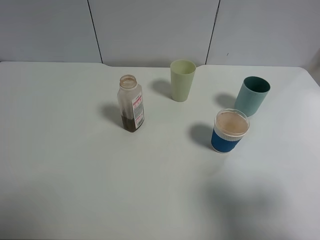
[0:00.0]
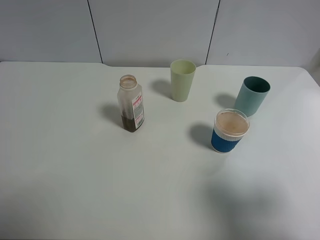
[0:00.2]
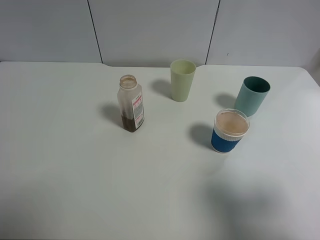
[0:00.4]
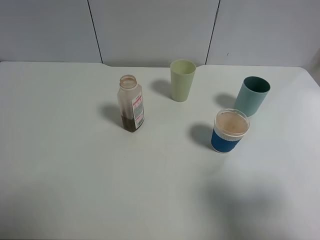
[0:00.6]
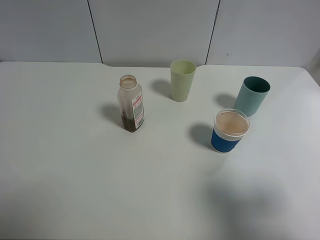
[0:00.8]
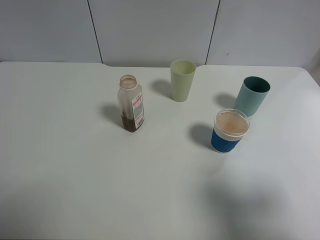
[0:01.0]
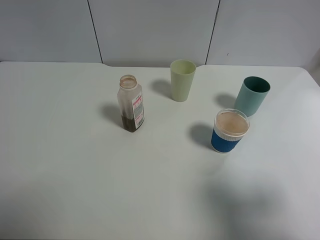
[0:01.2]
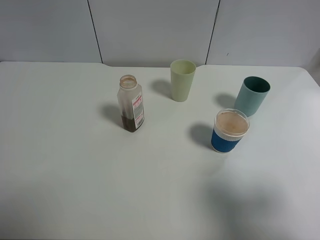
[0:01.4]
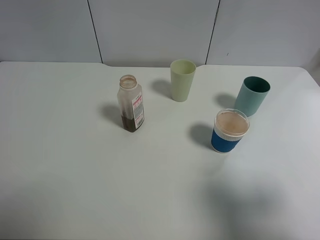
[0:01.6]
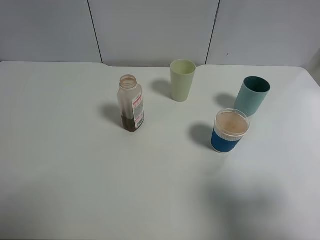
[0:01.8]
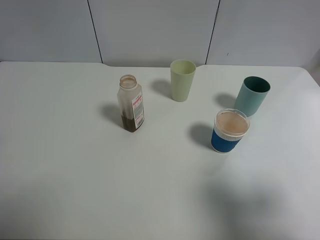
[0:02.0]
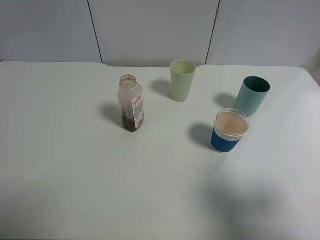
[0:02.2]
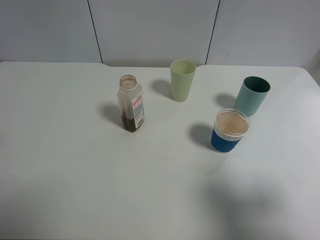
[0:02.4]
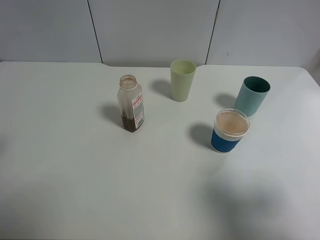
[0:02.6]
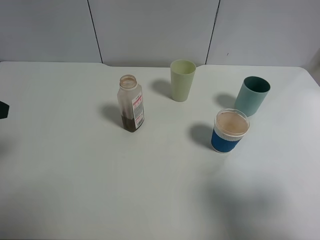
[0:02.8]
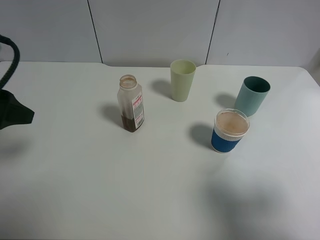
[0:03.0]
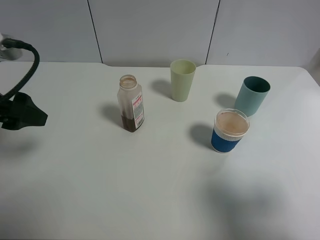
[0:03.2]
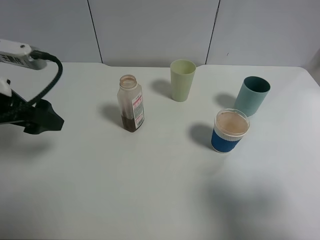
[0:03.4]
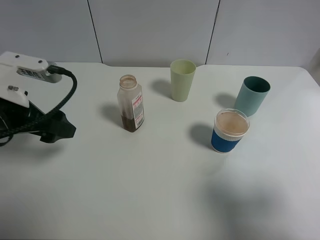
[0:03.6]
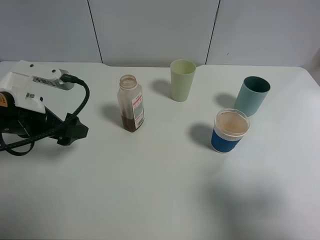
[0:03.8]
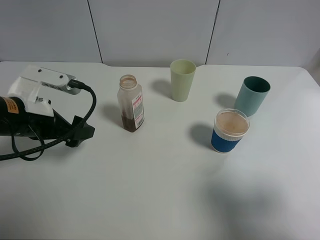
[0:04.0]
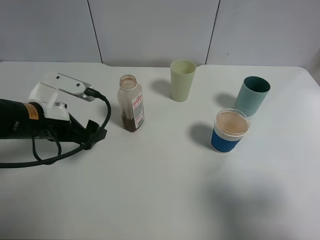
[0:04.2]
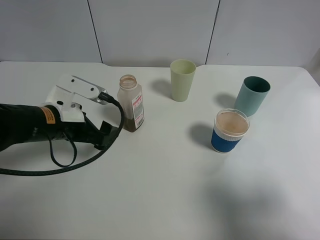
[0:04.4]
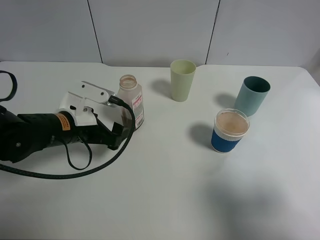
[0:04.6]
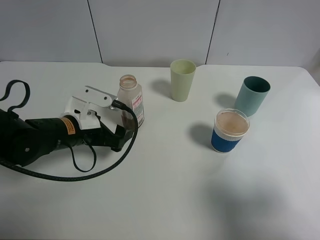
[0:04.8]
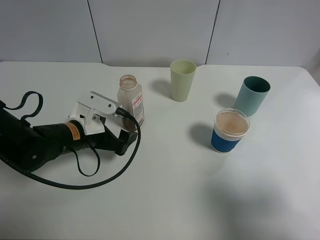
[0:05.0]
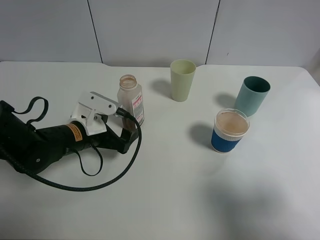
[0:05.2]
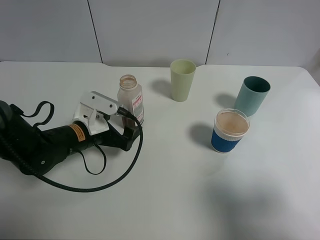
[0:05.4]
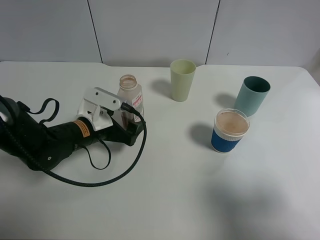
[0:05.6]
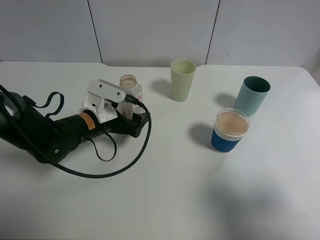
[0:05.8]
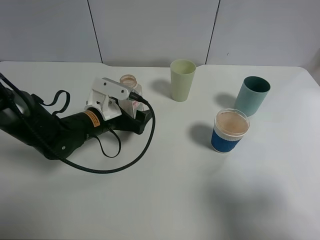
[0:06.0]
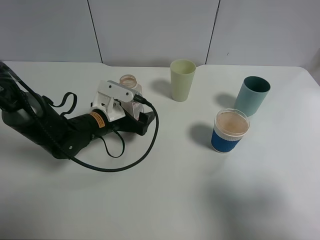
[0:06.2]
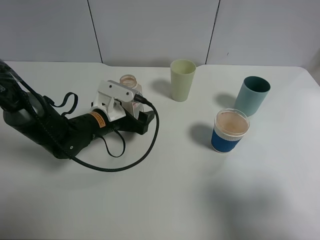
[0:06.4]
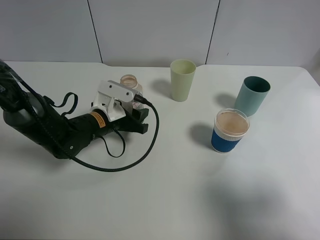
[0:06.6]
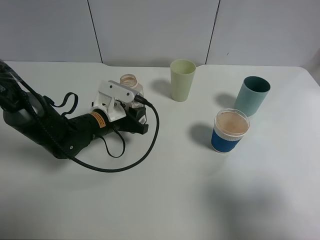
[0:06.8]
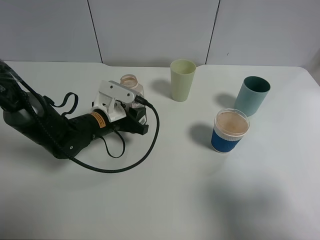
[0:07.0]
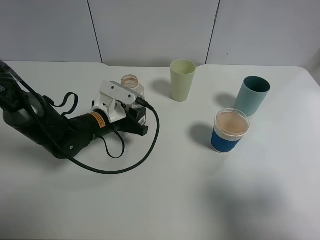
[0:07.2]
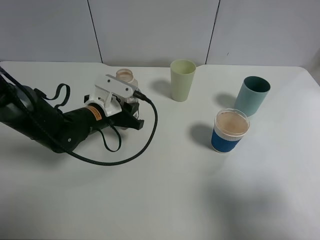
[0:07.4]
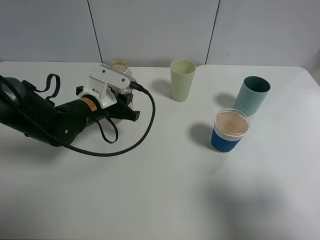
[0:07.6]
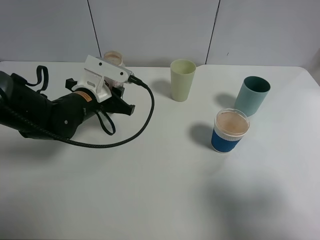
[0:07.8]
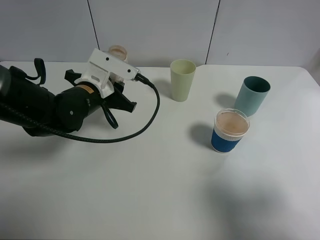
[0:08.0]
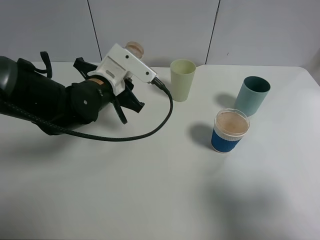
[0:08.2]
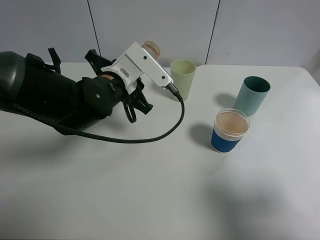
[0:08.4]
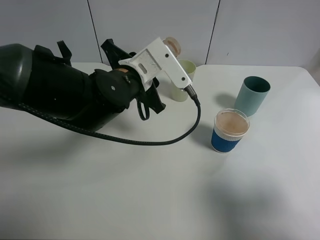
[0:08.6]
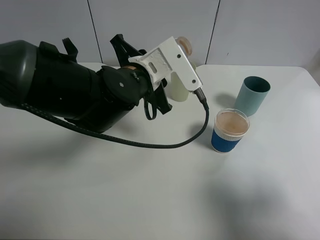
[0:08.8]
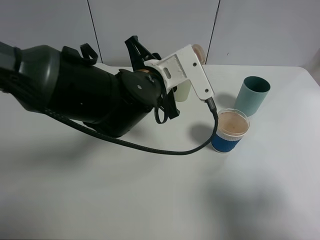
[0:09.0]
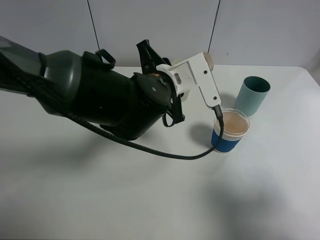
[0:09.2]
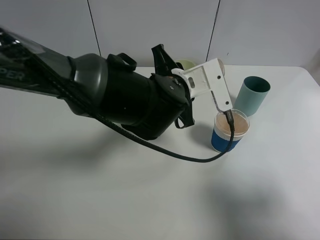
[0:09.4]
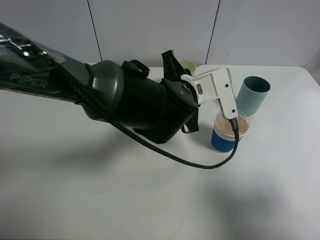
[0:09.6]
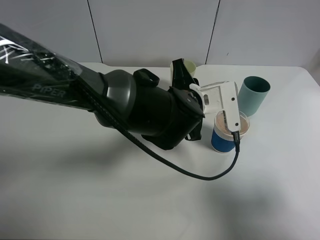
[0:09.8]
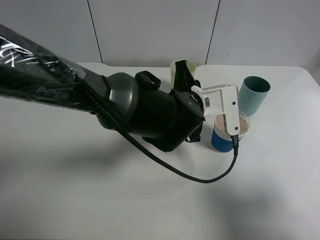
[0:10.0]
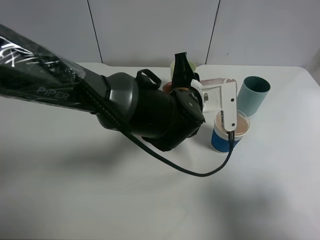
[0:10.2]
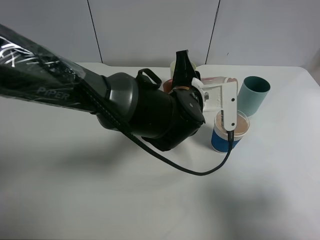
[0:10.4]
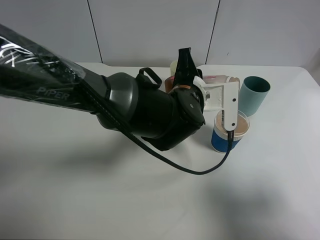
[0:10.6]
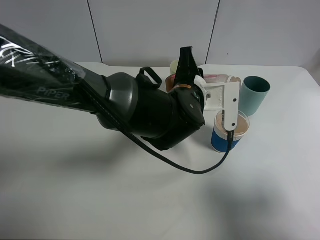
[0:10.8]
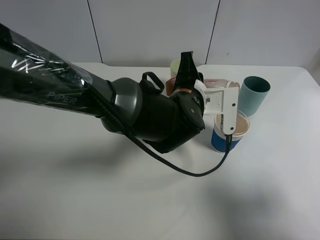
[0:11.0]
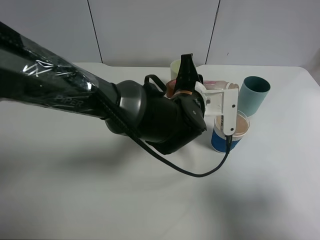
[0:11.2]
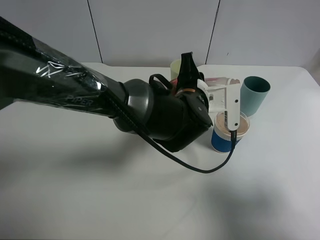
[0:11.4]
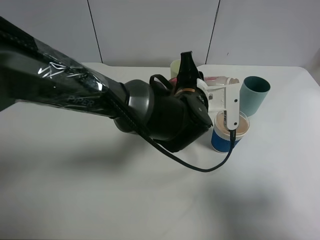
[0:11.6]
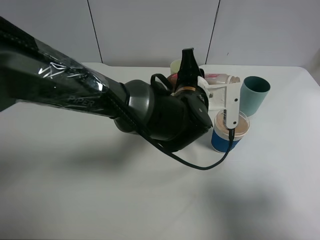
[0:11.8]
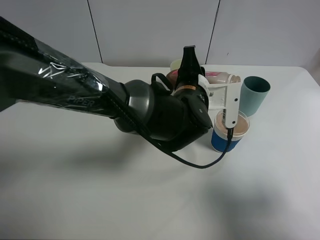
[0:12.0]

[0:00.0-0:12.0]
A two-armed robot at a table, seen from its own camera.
Task of the whole recording: use a clamp to hold the bottle of the drink, pour the beverage into a random cup, then clamp the cup containing the drink and pour the drink into another random cup.
Step, 0:00.0 to 0:07.6: Pick up the drink bottle with left gripper.
0:01.6 to 0:03.0: The left gripper goes about 10 cm forward and downward.
0:03.0 to 0:04.4: The left gripper moves downward and to the right, roughly 15 cm.
0:04.4 to 0:06.0: The left gripper moves downward and forward, some 10 cm.
0:06.0 to 0:07.6: The left gripper closes its fingers.
0:07.6 to 0:09.0: The left gripper shifts roughly 15 cm to the right and upward.
0:09.0 to 0:10.4: The left gripper is displaced to the right by about 5 cm.
0:10.4 to 0:12.0: There are only small adjustments of the grippers.

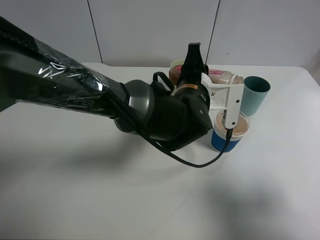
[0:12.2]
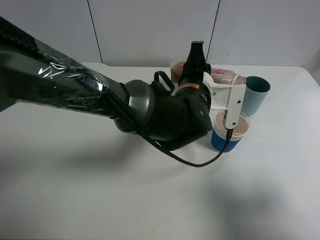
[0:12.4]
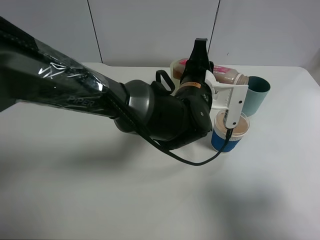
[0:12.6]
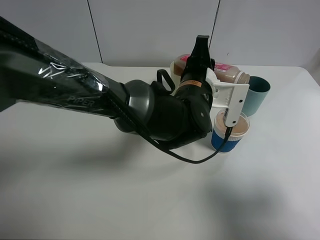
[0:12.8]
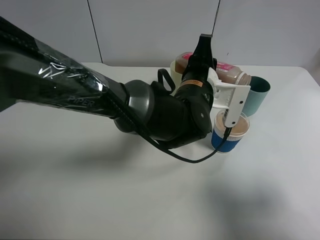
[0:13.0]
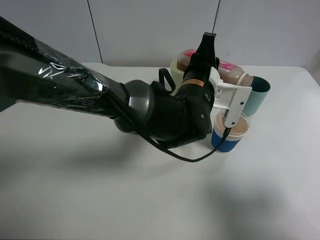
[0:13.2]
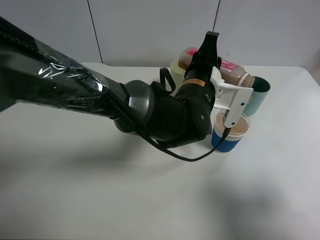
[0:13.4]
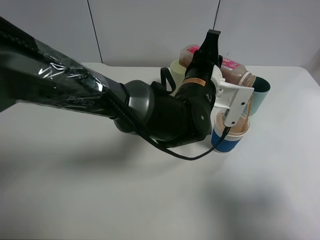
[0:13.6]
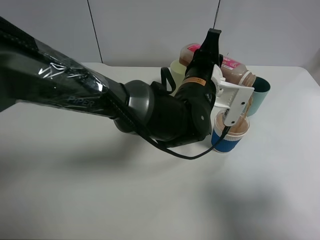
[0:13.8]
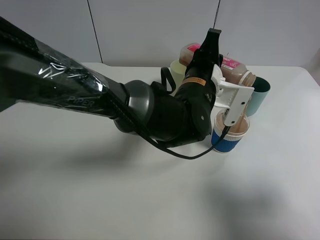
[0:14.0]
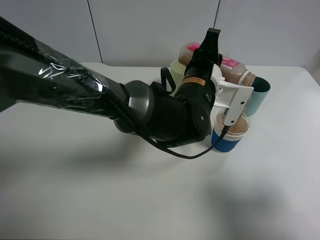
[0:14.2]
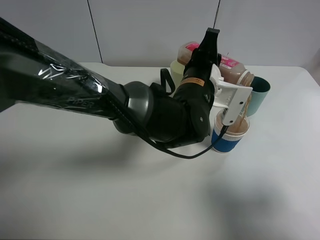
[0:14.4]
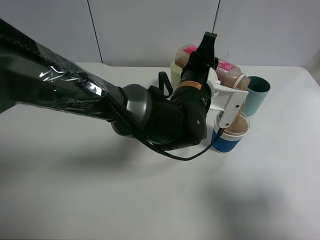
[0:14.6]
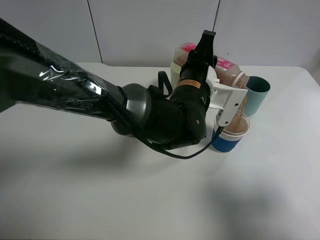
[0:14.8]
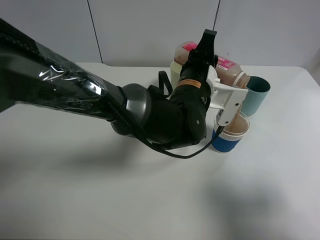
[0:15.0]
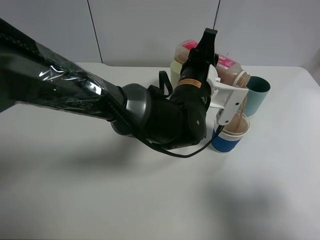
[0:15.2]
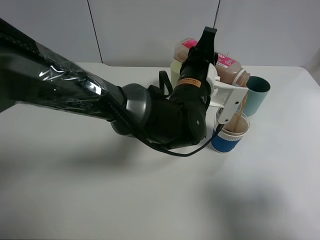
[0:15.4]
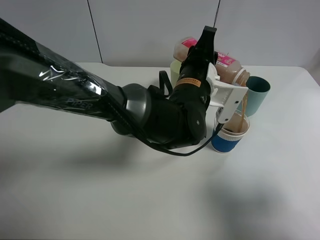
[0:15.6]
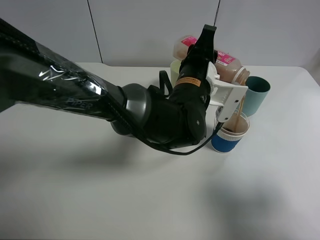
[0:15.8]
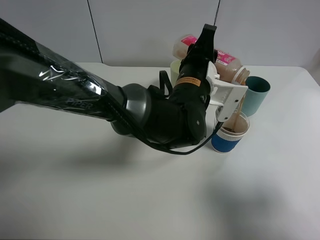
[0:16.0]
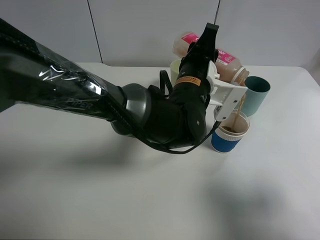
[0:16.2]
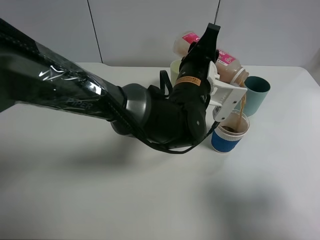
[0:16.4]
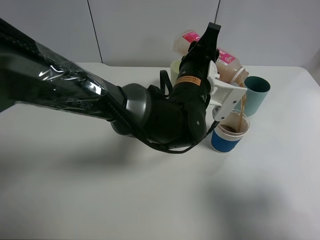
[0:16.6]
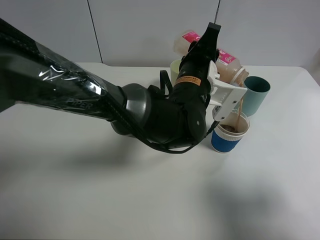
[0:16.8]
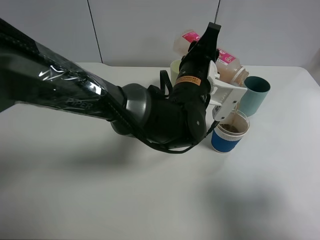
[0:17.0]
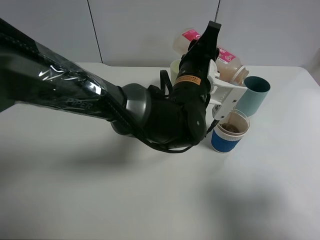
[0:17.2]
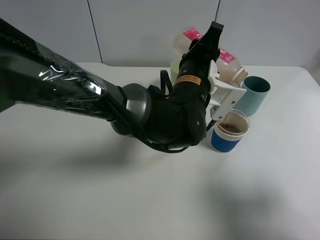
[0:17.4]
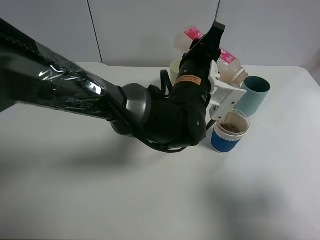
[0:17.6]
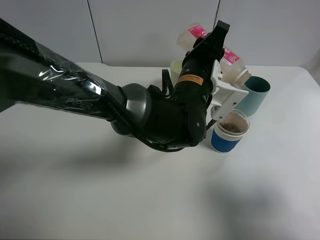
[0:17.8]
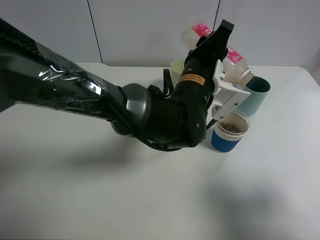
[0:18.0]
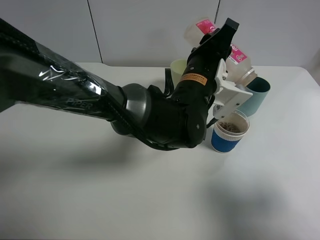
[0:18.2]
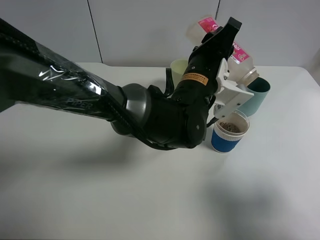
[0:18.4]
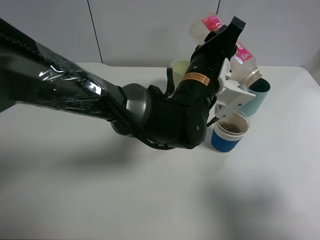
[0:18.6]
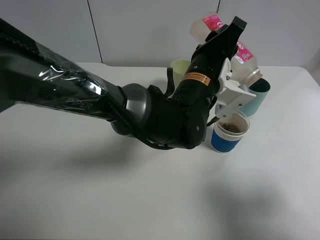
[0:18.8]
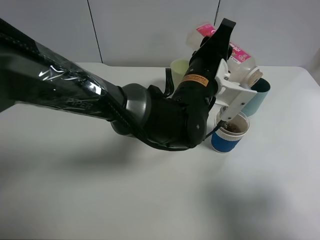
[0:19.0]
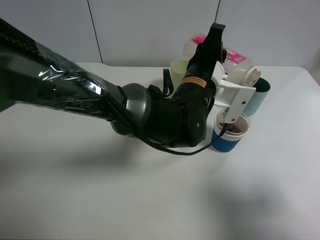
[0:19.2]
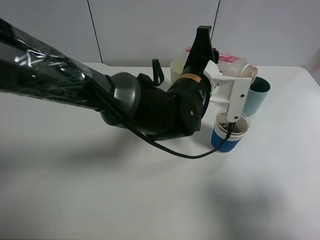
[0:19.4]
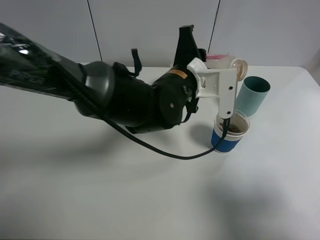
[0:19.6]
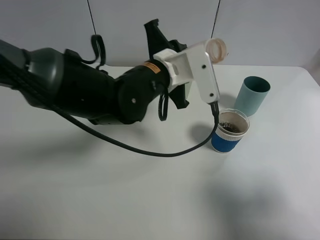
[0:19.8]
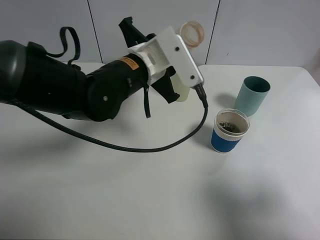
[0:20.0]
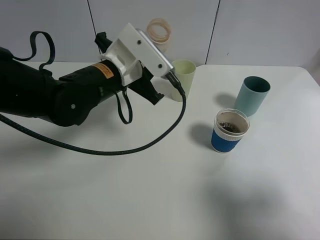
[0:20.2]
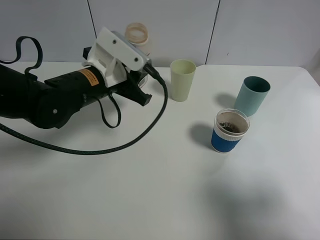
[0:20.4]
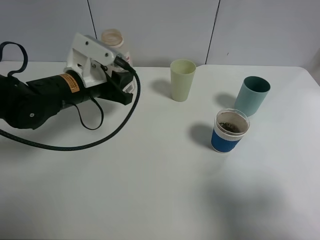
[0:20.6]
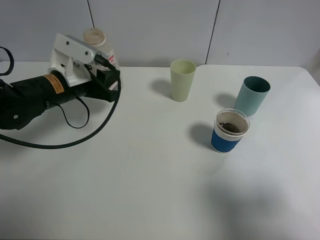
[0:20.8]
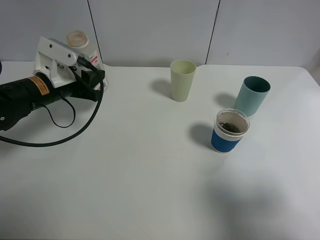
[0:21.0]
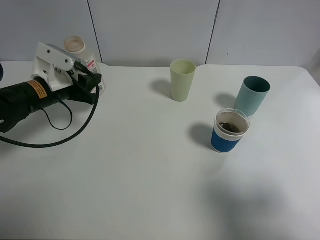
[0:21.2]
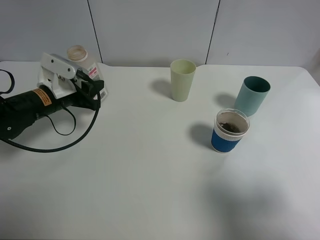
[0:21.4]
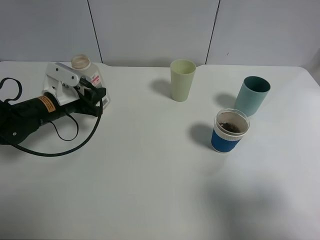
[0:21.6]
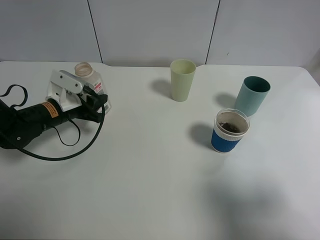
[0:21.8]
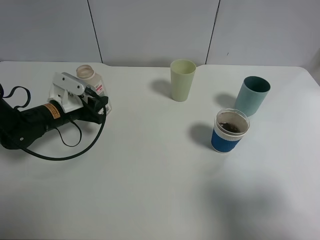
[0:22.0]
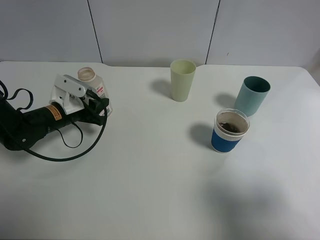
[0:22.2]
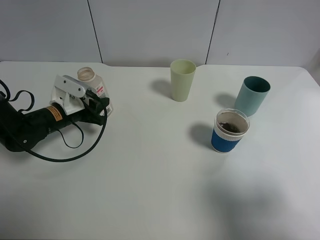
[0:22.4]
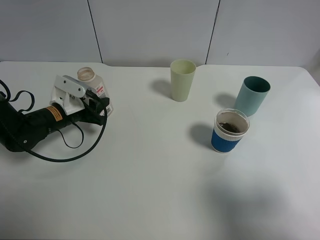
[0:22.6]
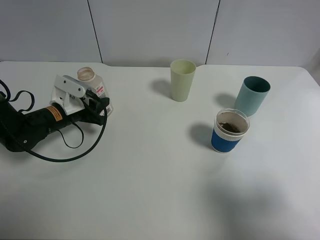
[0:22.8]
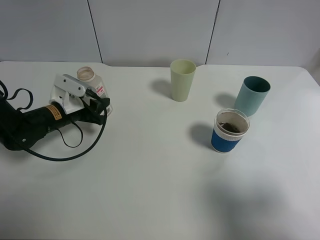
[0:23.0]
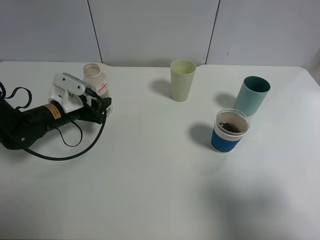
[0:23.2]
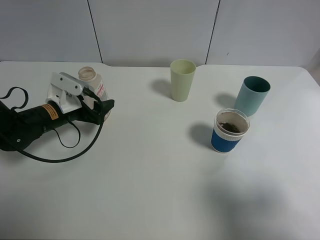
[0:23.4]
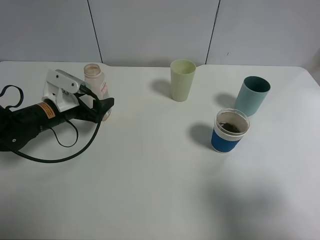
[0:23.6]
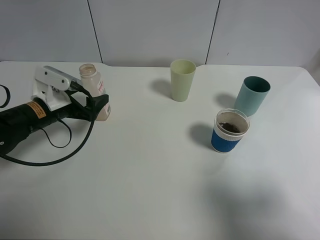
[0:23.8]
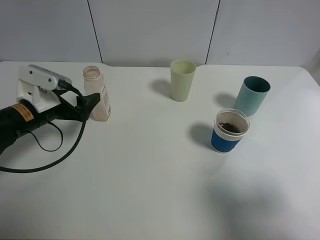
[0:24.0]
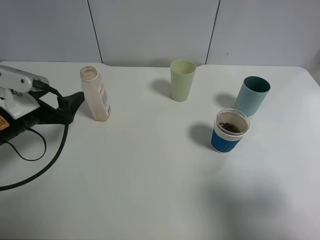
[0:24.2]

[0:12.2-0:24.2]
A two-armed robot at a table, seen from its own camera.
Task of the whole recording: use a clamp to hold the bottle of the drink, pour the beverage into a random cup, then clamp the cup containing the drink and pour the drink into another random cup.
Step, 0:12.2 to 0:19.2: Pour the drink into the paper cup with left gripper.
Step, 0:19.4 to 0:23.2: Place the drink bottle on the table with left gripper.
0:12.2 to 0:13.8: The grippers make only small movements.
0:13.8 to 0:15.2: Both grippers stay put.
0:15.2 to 0:18.2: The grippers move only a little.
0:18.2 to 0:19.8: The left gripper shifts about 10 cm to the left.
0:19.8 to 0:21.2: The left gripper goes approximately 20 cm to the left.
0:21.2 to 0:22.6: The left gripper goes approximately 5 cm downward.
0:22.6 to 0:24.2: The left gripper moves backward and upward, roughly 15 cm, and opens up.
